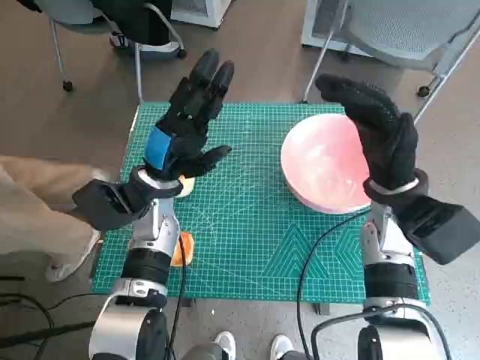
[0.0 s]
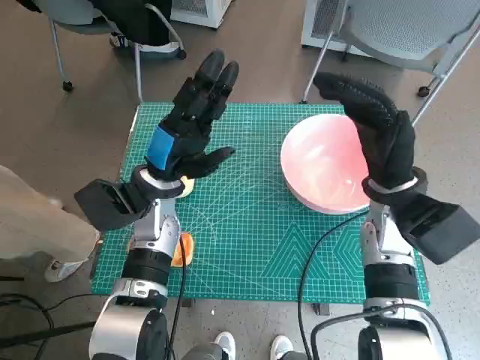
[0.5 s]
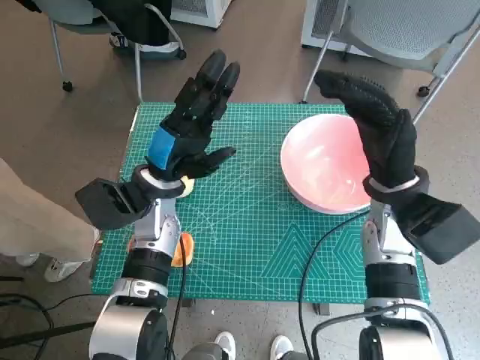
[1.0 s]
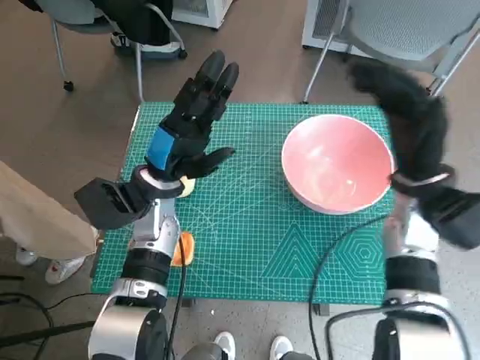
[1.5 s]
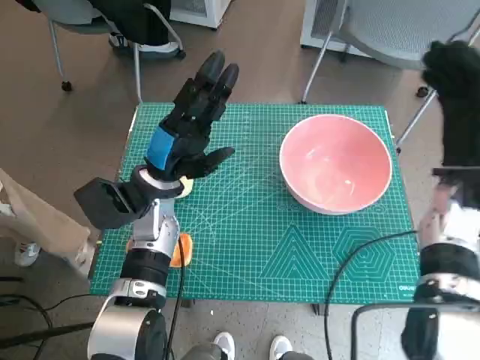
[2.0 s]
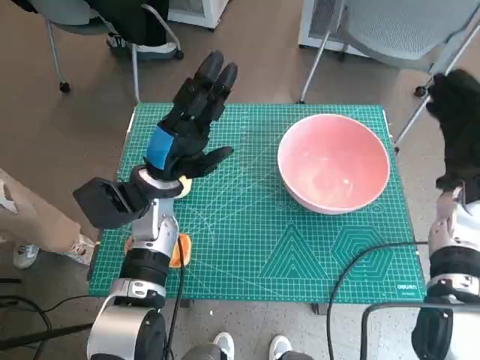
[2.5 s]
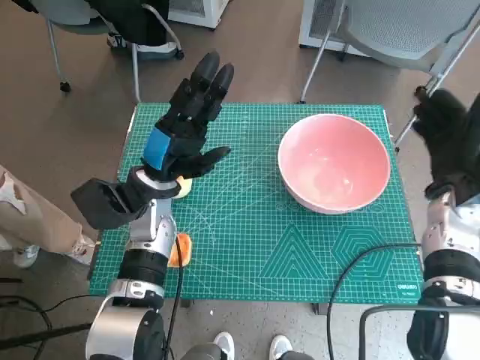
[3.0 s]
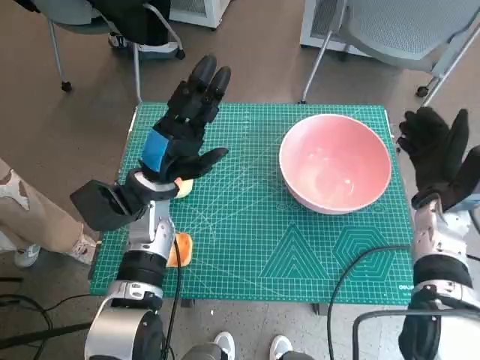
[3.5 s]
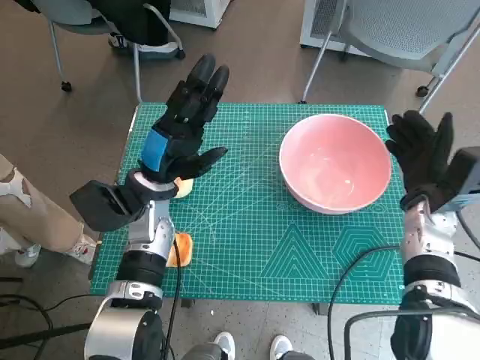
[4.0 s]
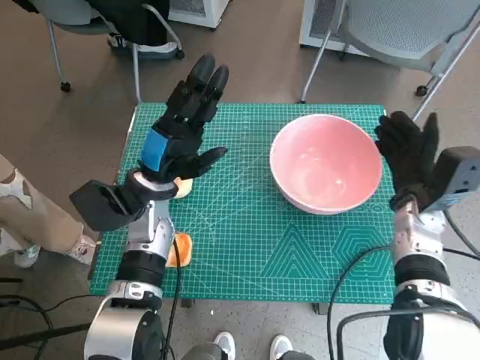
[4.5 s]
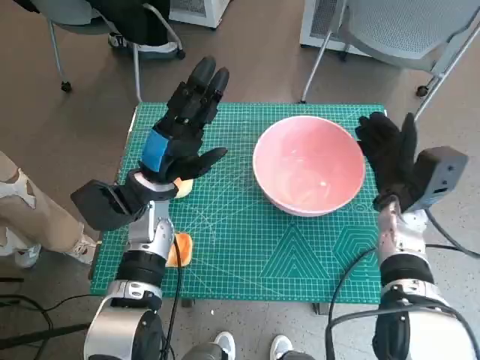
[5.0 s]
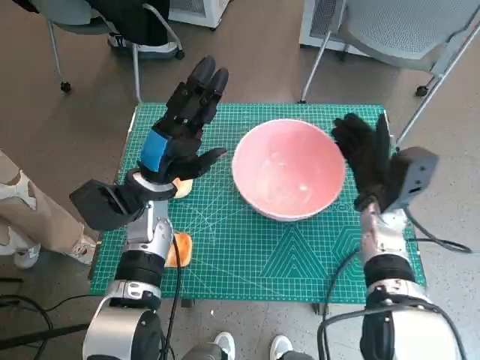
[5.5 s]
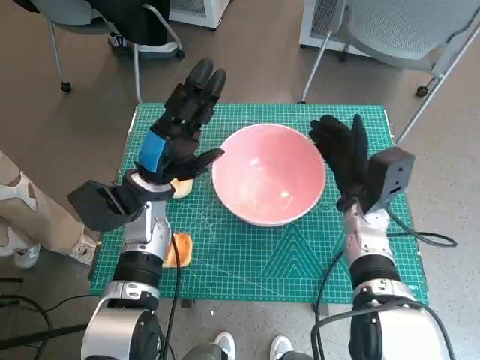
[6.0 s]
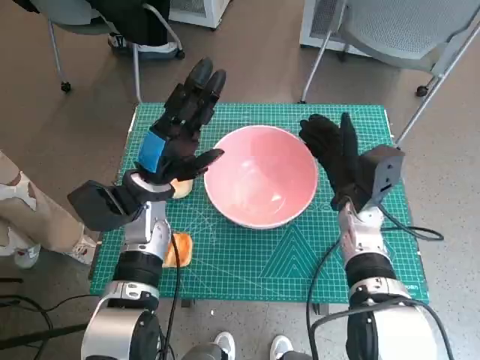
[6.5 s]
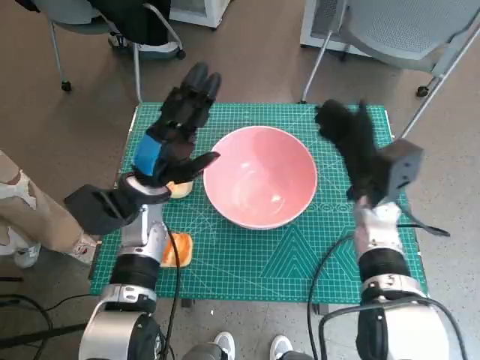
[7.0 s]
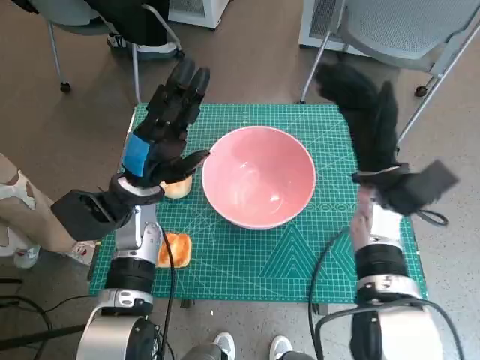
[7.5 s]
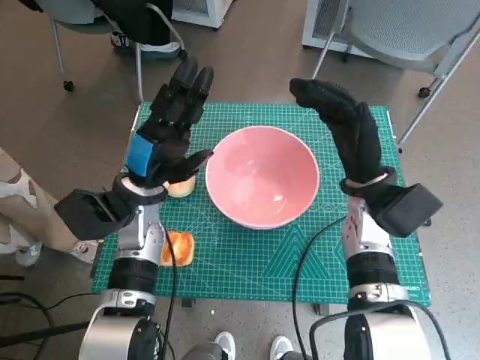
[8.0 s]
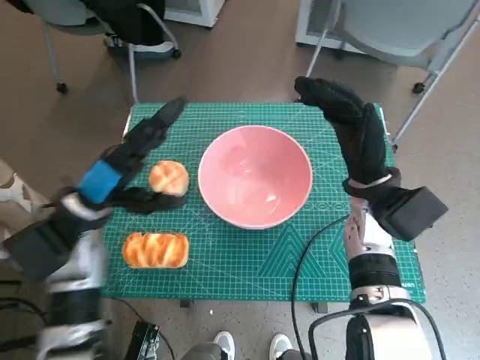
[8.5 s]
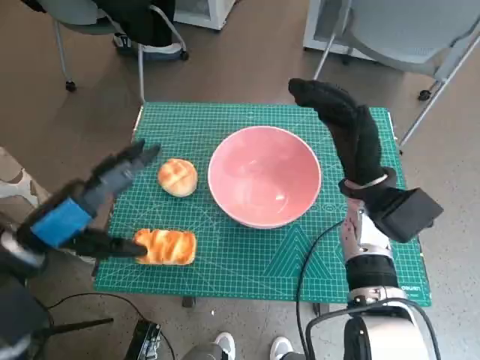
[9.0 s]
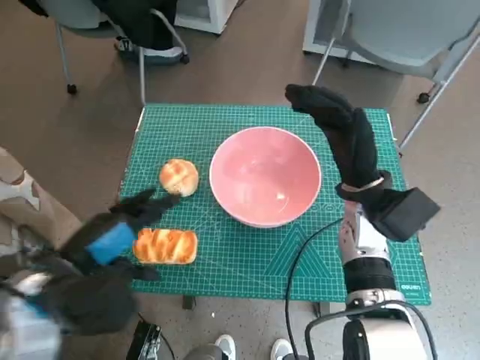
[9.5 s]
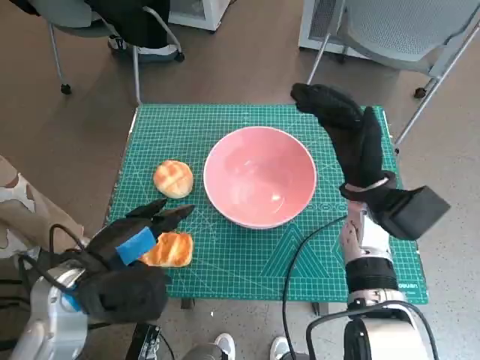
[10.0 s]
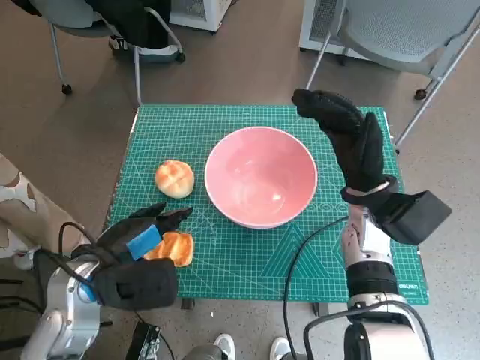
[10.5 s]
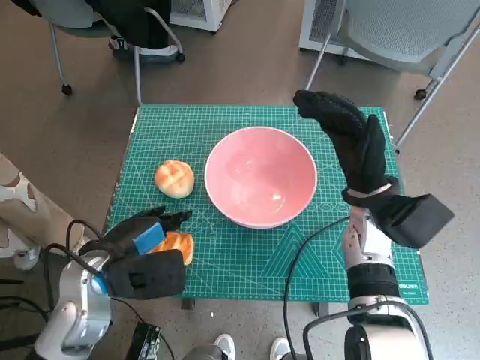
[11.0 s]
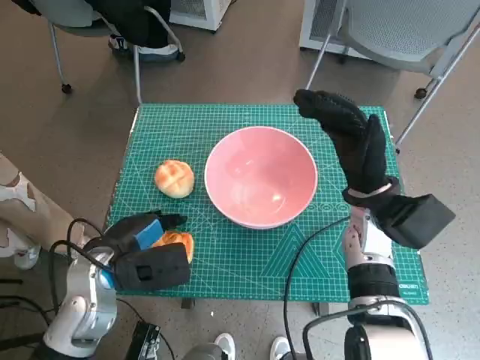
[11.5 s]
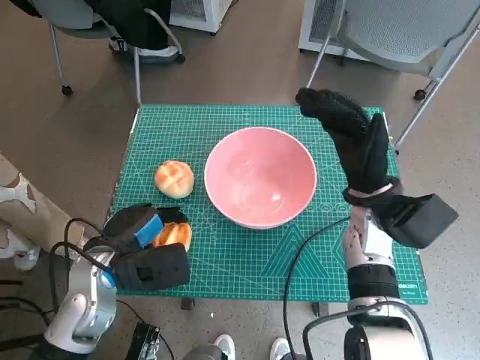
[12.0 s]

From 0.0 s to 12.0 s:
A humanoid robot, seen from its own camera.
Step, from 0.0 s to 7.0 s: Move the pink bowl to the center of table with right hand.
Step, from 7.5 s to 11.5 s: Grasp the long bread with left hand.
From 2.0 s to 4.0 s: The right hand is displaced downward by some 5 cm.
From 4.0 s to 6.0 s: The right hand goes approximately 10 cm to the left.
From 6.0 s to 8.0 s: The right hand travels upward by approximately 5 cm.
From 8.0 s to 10.0 s: The left hand moves backward, about 10 cm.
From 10.0 s to 12.0 s: The left hand moves about 5 cm.

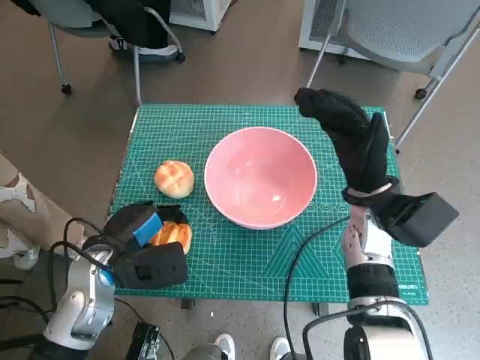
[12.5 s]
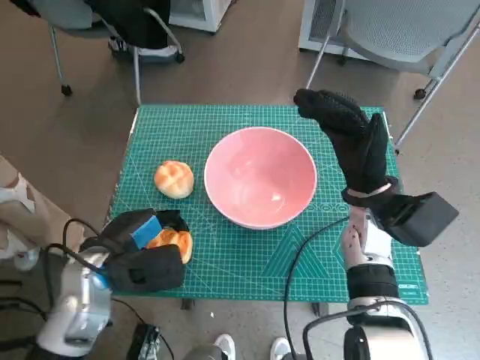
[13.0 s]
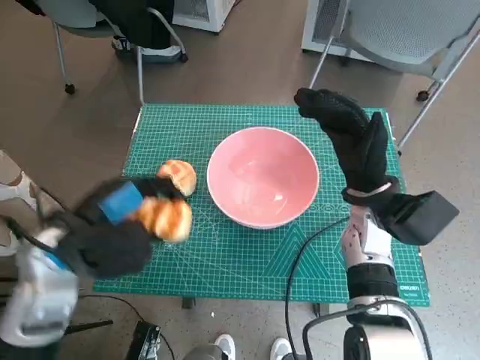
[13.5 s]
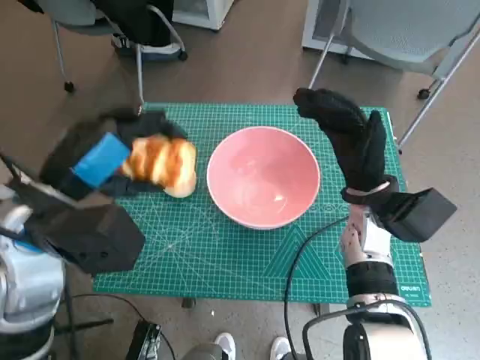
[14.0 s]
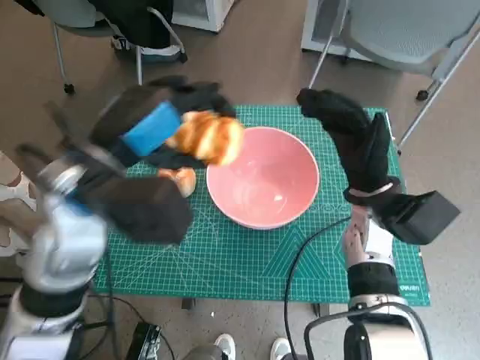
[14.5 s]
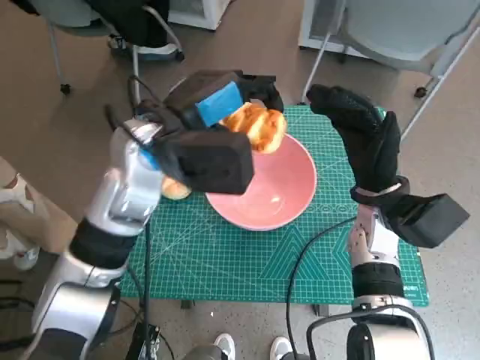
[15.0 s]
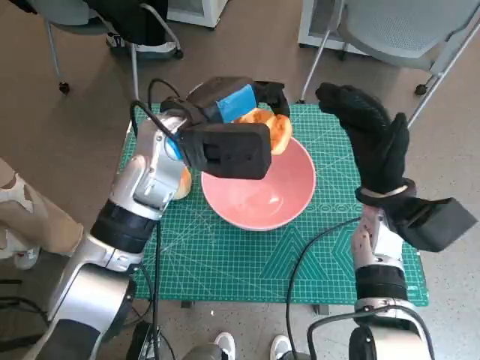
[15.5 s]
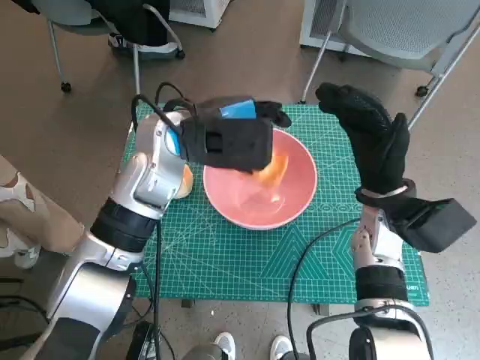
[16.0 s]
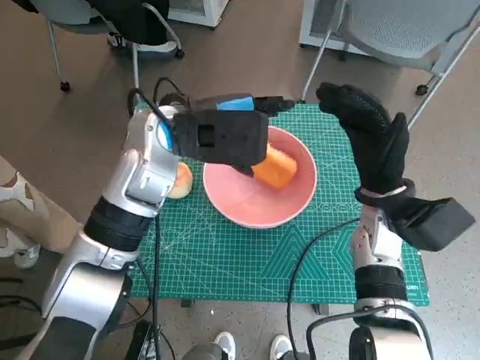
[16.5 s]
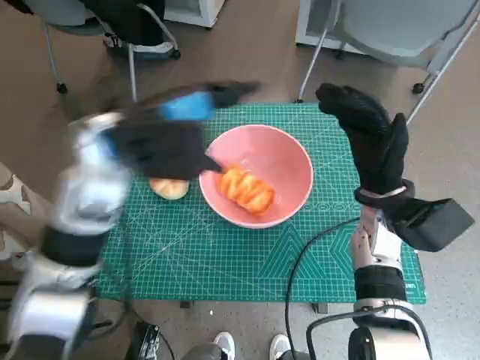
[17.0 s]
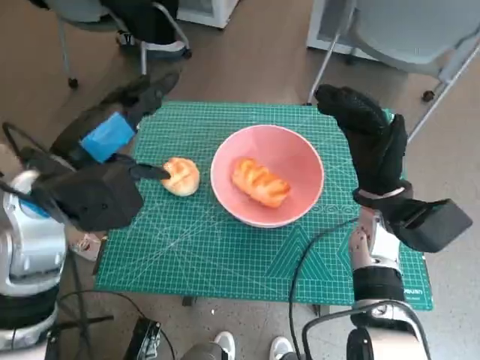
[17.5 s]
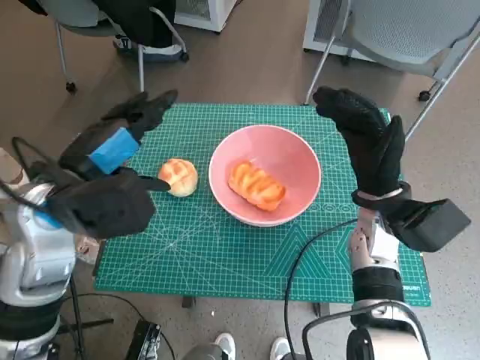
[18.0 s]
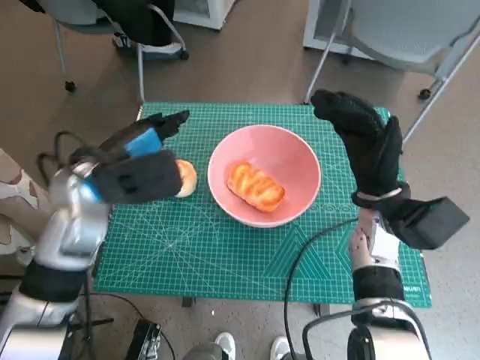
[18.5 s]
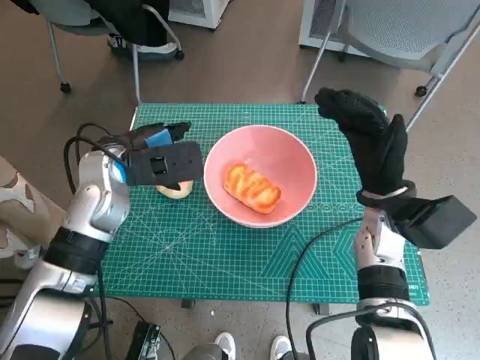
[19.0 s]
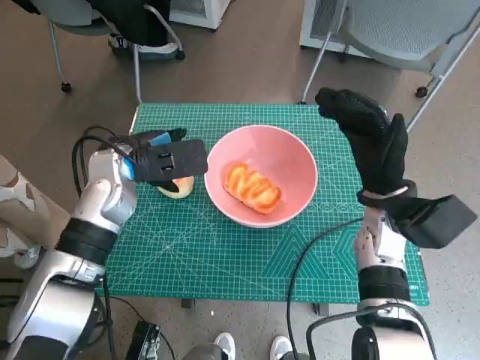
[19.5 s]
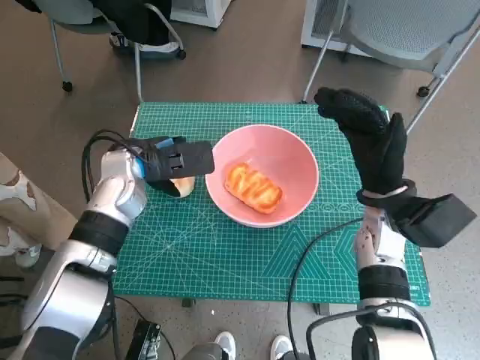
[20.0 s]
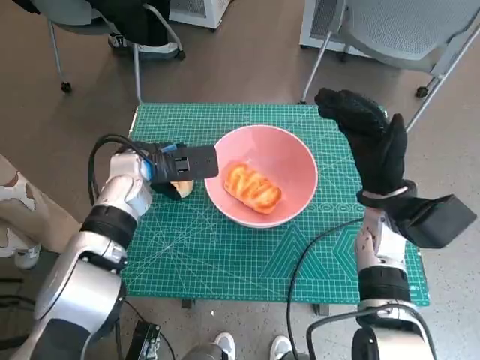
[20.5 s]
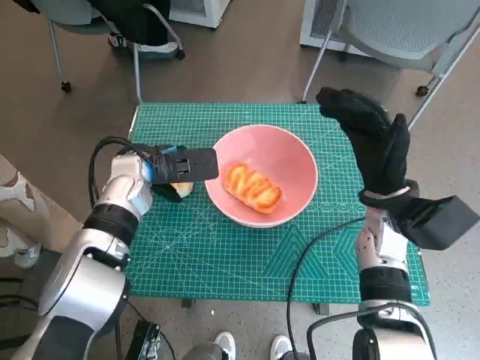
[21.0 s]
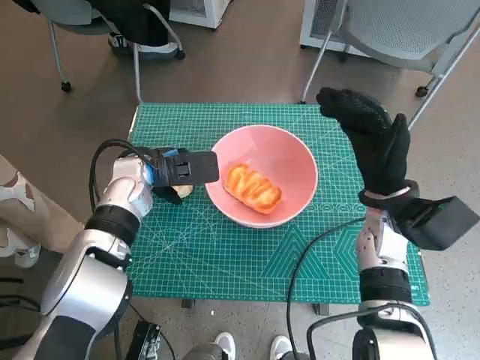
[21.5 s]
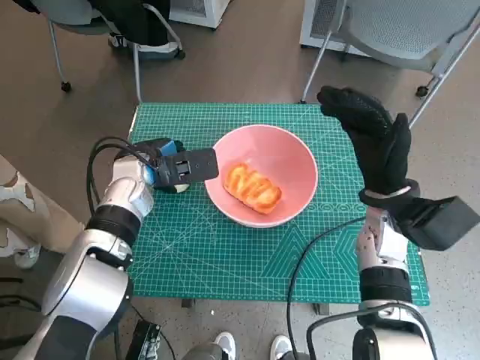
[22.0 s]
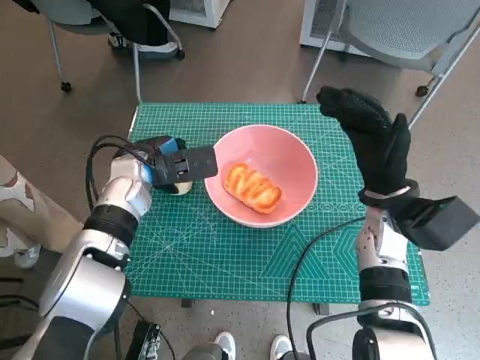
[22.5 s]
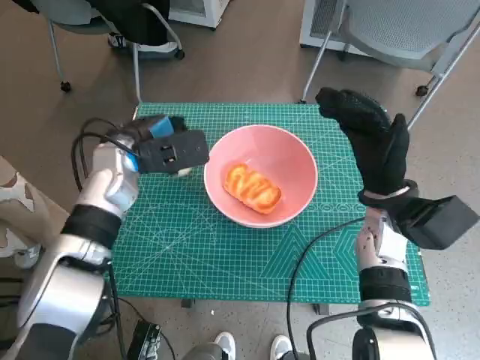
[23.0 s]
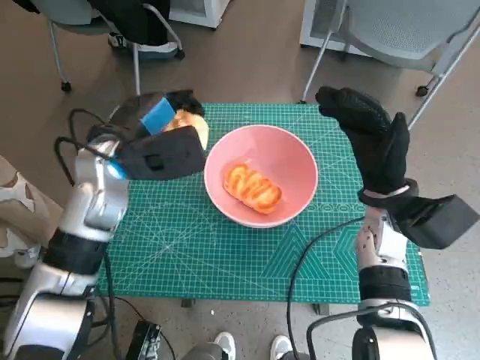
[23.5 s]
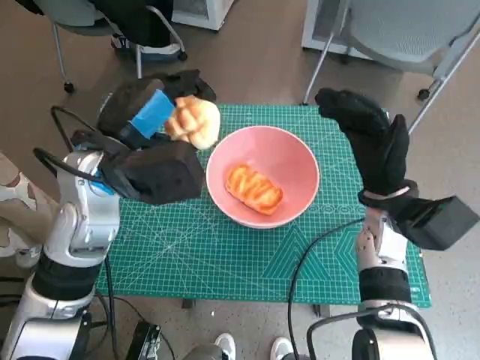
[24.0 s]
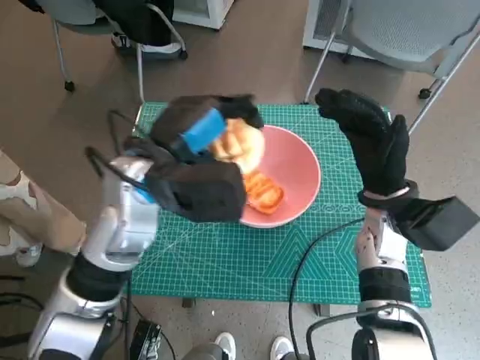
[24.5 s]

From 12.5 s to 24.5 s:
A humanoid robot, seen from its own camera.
Step, from 12.5 s to 16.0 s: Place the long bread in pink bowl with left hand.
Step, from 16.5 s to 22.0 s: Grasp the round bread with left hand.
From 12.5 s to 14.5 s: The left hand moves upward, some 15 cm.
From 14.5 s to 16.5 s: The left hand travels forward and to the right by some 10 cm.
From 16.5 s to 18.5 s: The left hand travels to the left by roughly 10 cm.
From 18.5 s to 20.5 s: The left hand moves forward and downward, roughly 10 cm.
From 20.5 s to 22.5 s: The hands move only a little.
From 22.5 s to 24.5 s: The left hand shifts some 15 cm upward, backward and to the right.

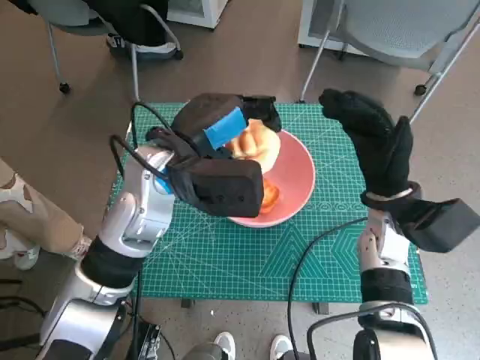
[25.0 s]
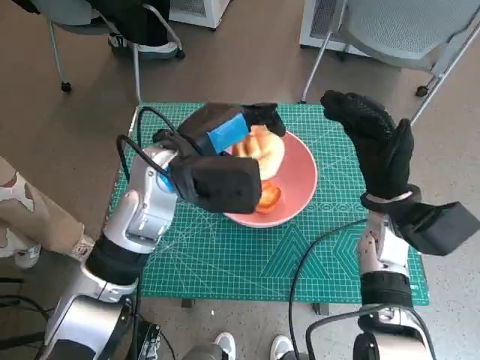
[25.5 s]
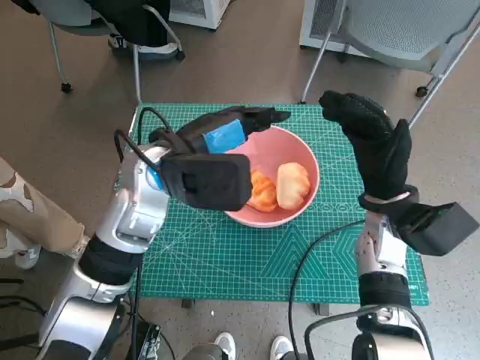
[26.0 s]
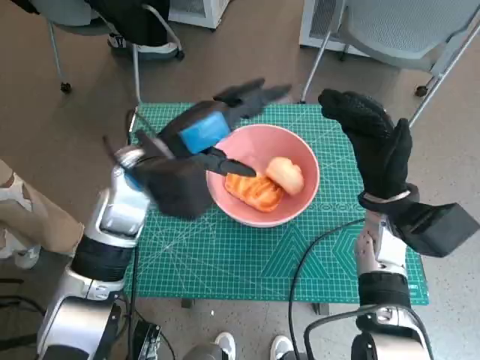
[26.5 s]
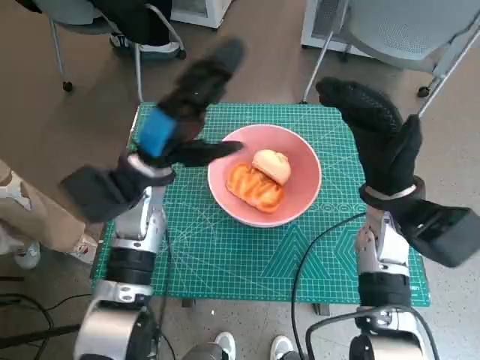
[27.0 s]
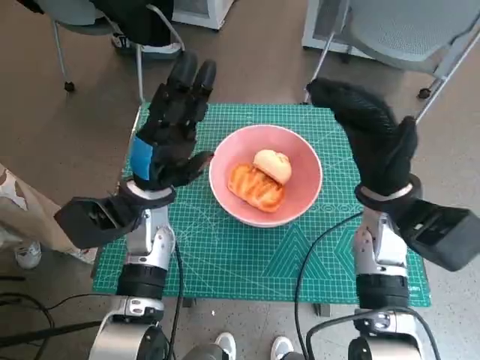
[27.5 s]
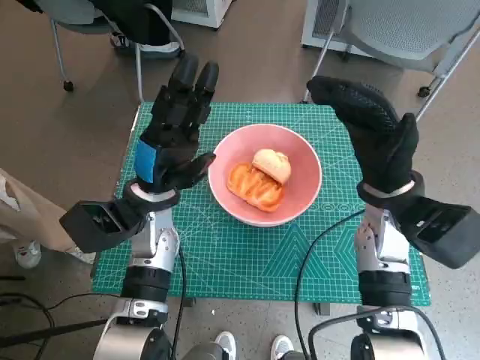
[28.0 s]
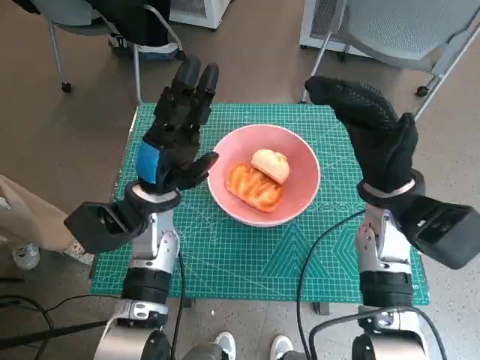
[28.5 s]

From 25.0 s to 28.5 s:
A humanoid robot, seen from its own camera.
From 25.0 s to 27.0 s: The left hand moves some 5 cm.
From 27.0 s to 28.5 s: The left hand ends up approximately 5 cm from where it was.
